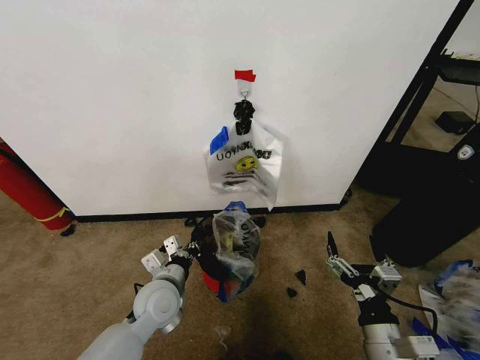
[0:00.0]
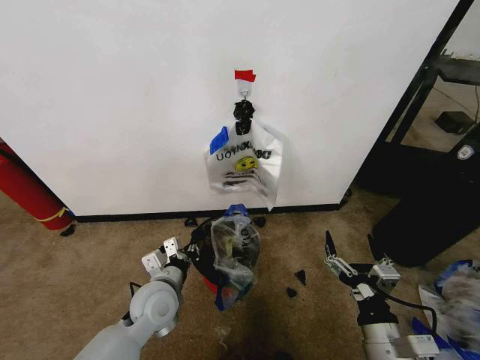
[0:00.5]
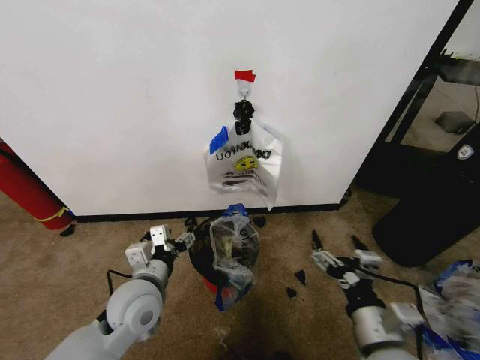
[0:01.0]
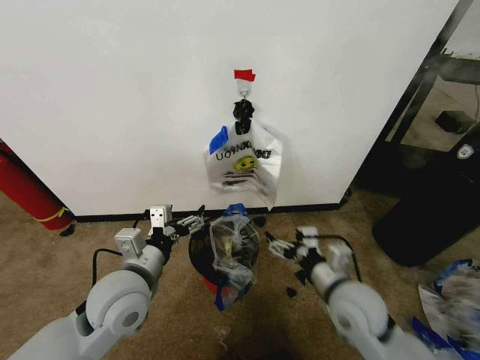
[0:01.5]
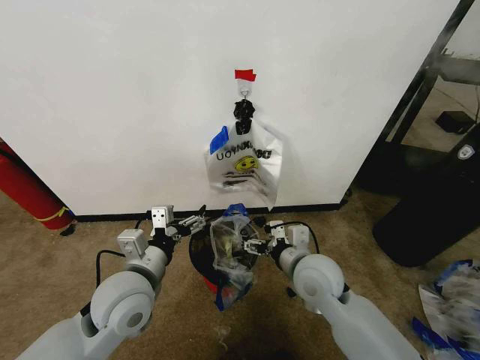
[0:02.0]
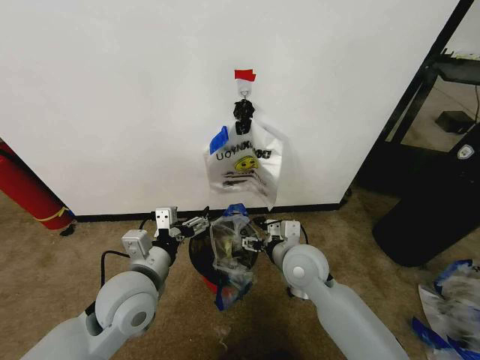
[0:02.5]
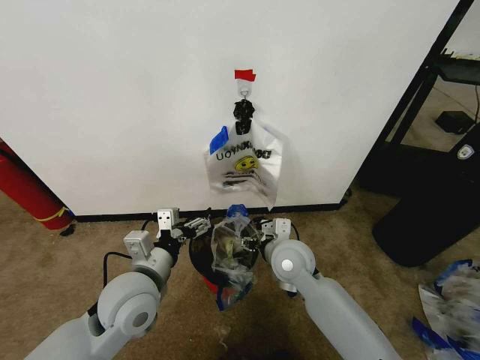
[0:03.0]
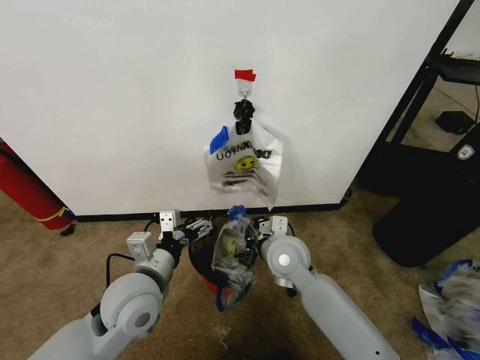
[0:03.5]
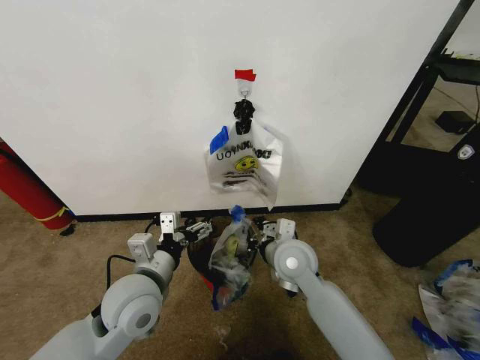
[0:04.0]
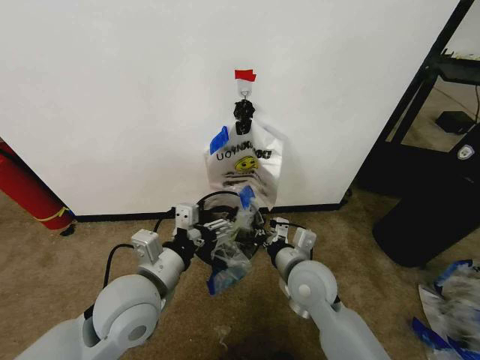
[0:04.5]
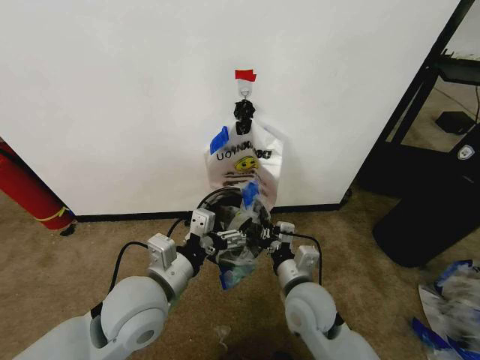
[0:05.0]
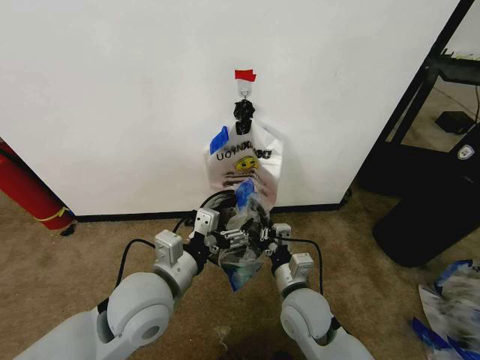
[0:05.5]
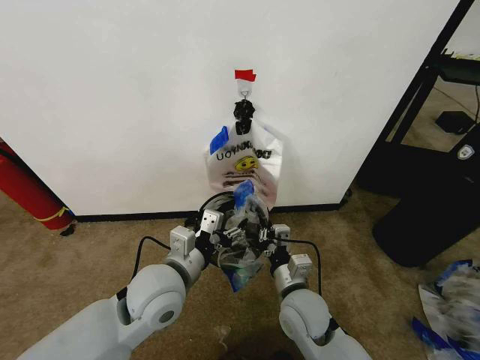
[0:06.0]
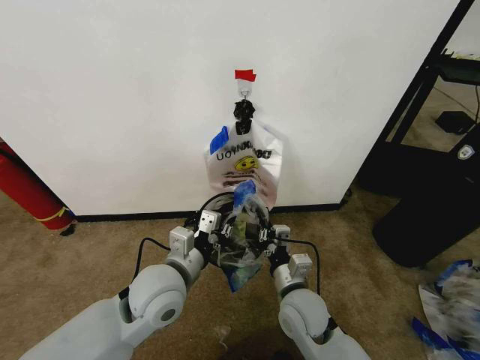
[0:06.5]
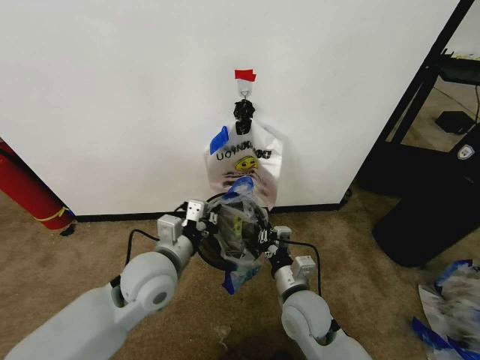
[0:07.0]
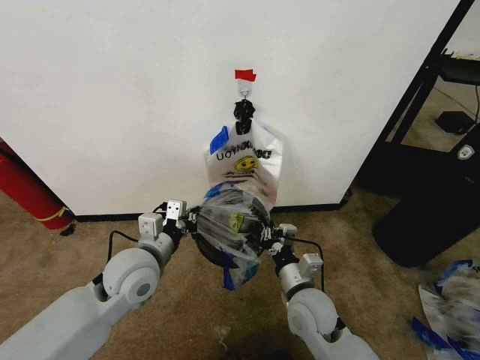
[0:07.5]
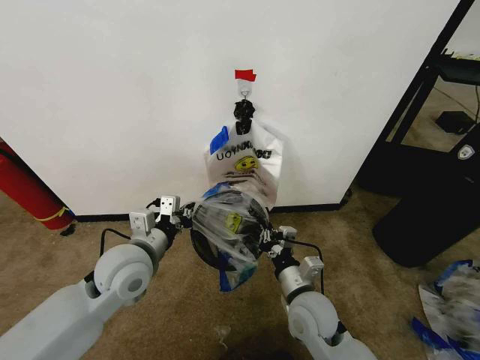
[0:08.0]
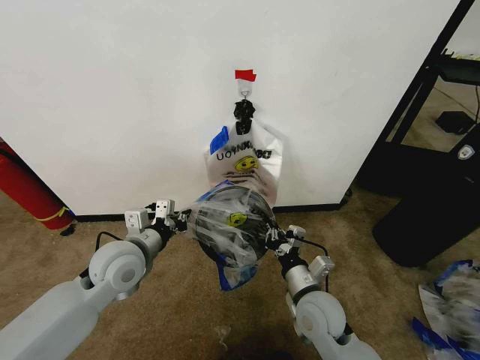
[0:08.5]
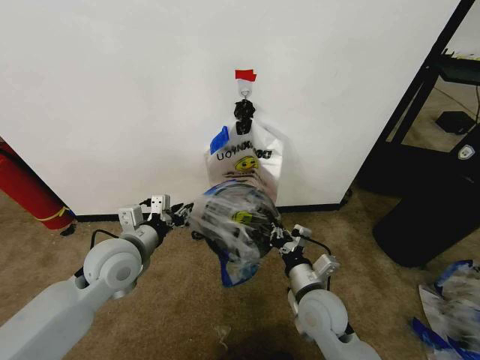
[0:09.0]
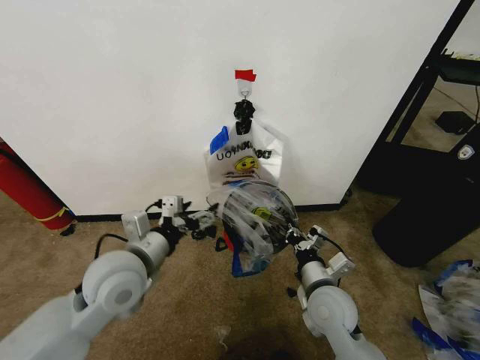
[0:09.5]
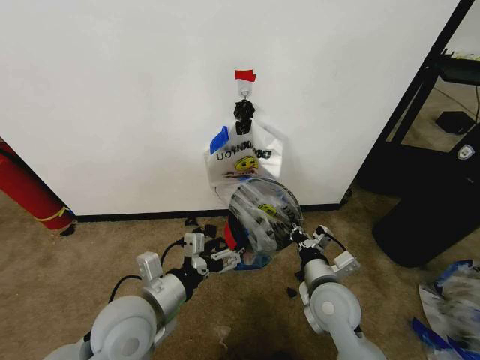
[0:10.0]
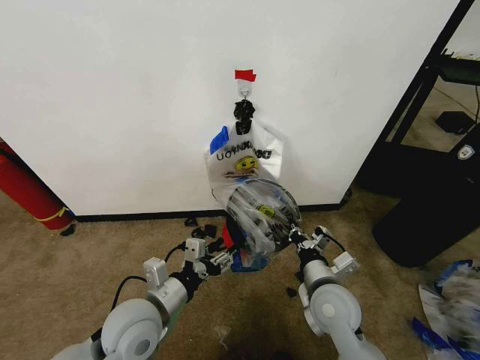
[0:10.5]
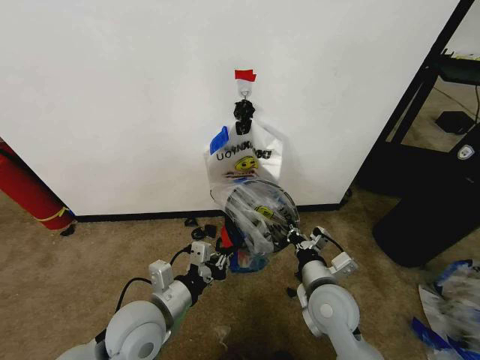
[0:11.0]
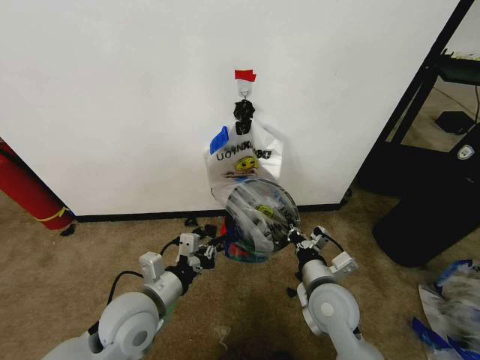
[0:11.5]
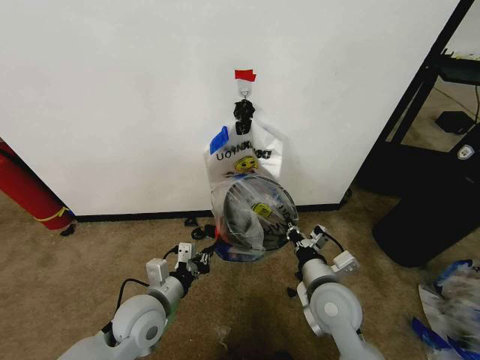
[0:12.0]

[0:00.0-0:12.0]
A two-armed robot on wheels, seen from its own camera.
Task of the whole recording: Pick up the garbage bag from the wall and place it over the trash bin.
0:00.0 to 0:02.0: The right gripper travels forward and to the left by roughly 20 cm, while the left gripper goes about 10 cm upward, and opens its fingers.
0:02.0 to 0:04.0: The right gripper ends up roughly 5 cm from where it was, and closes up.
0:04.0 to 0:06.0: The right gripper goes some 10 cm backward and downward.
0:06.0 to 0:08.0: The left gripper heads to the left, covering some 5 cm, and closes its fingers.
0:08.0 to 0:10.0: The left gripper goes about 10 cm backward, and opens up.
0:10.0 to 0:12.0: The left gripper travels downward by roughly 10 cm, and closes its fingers.

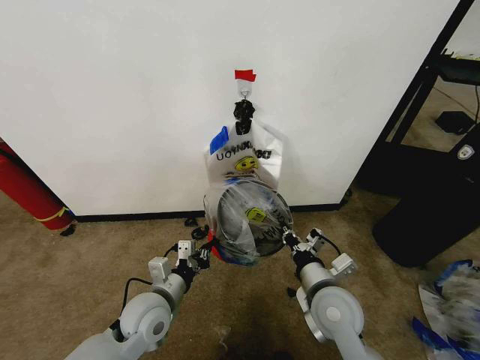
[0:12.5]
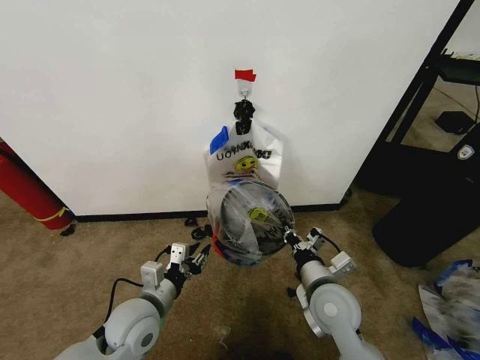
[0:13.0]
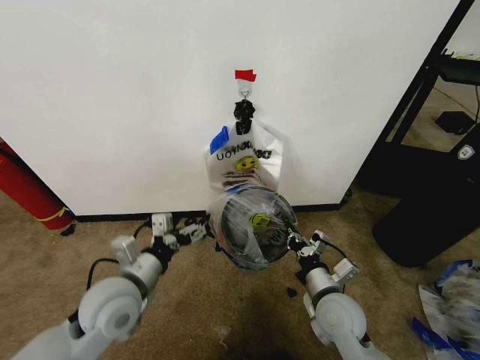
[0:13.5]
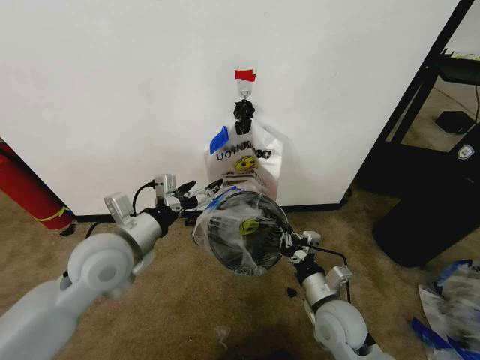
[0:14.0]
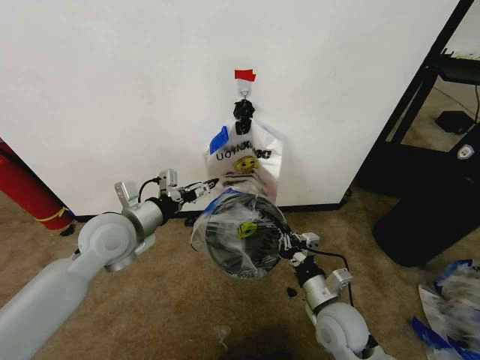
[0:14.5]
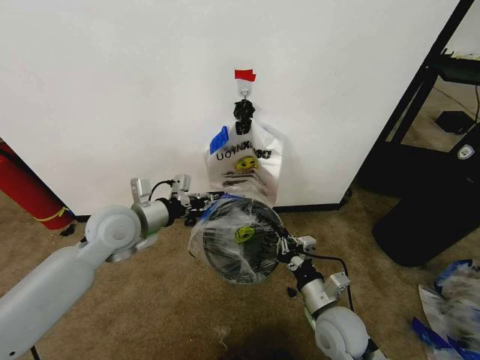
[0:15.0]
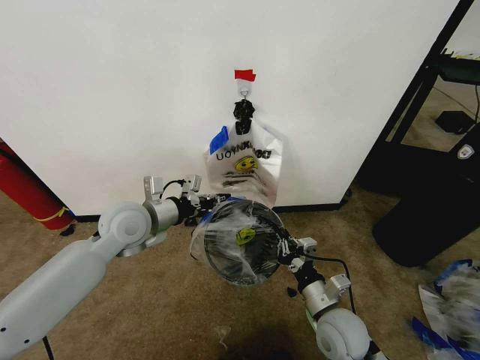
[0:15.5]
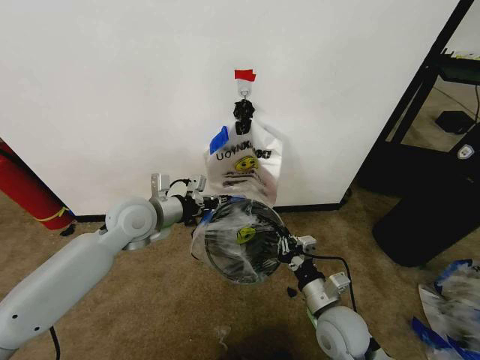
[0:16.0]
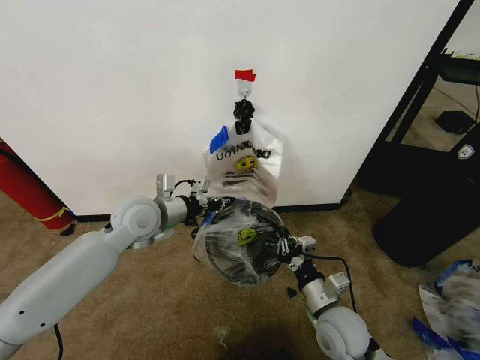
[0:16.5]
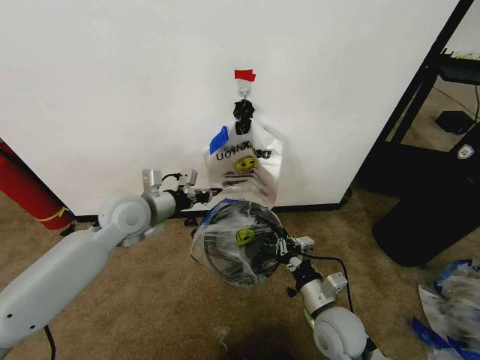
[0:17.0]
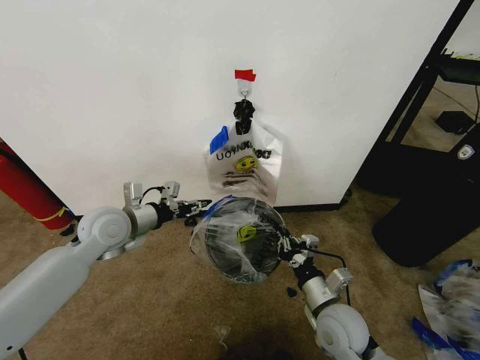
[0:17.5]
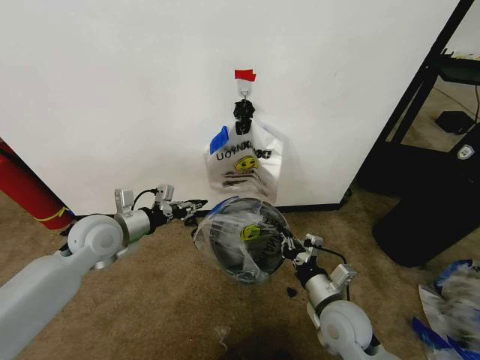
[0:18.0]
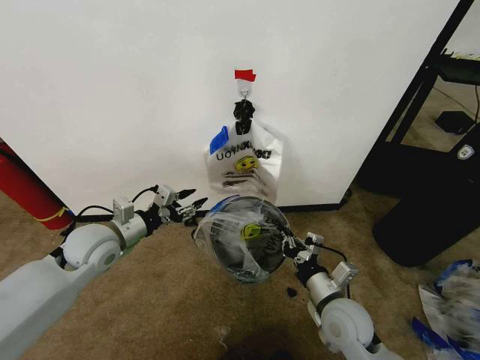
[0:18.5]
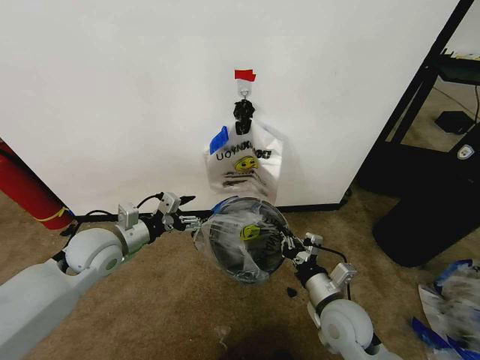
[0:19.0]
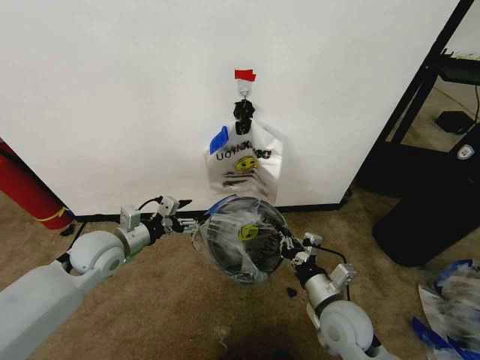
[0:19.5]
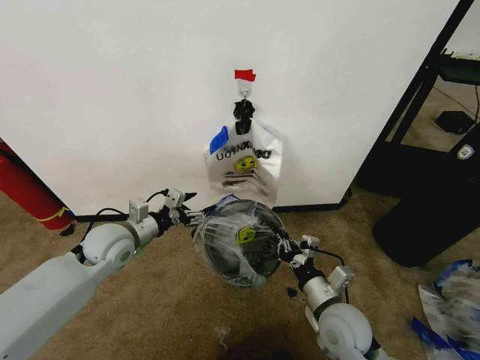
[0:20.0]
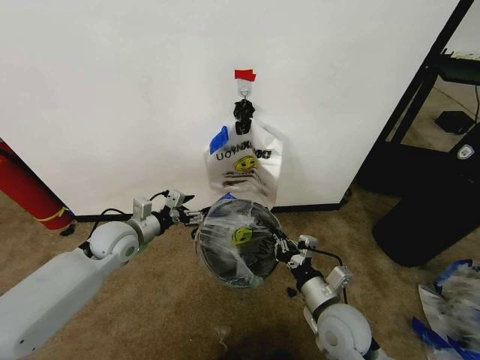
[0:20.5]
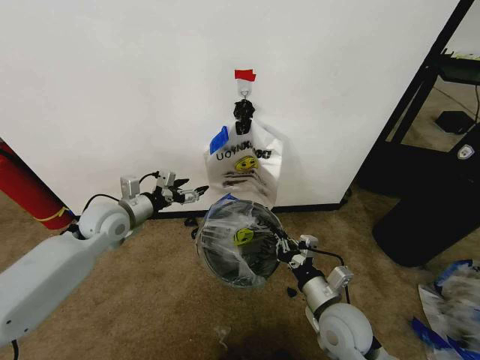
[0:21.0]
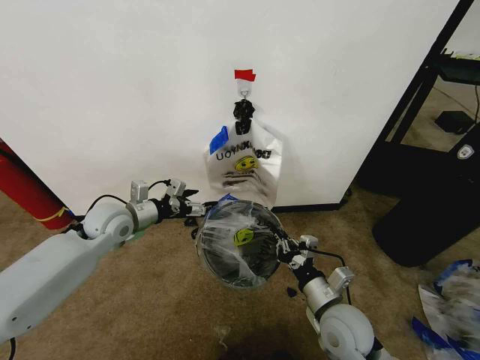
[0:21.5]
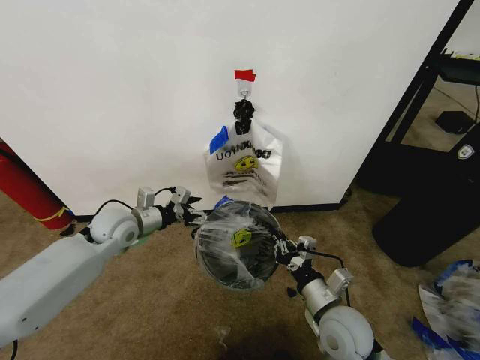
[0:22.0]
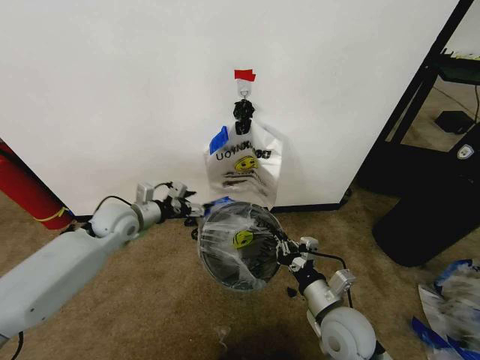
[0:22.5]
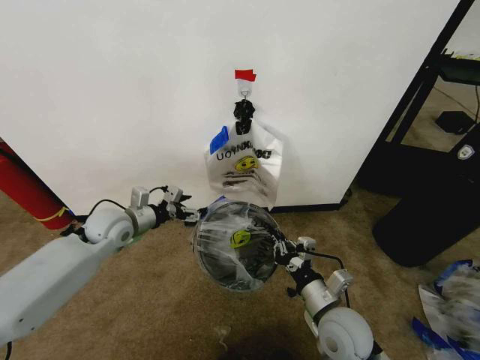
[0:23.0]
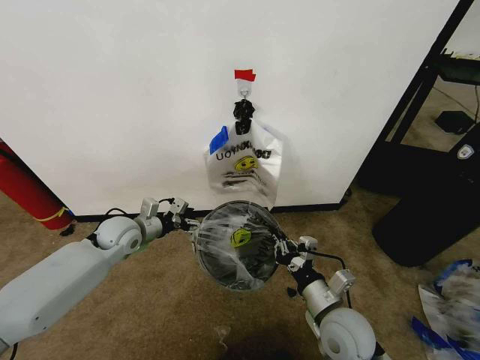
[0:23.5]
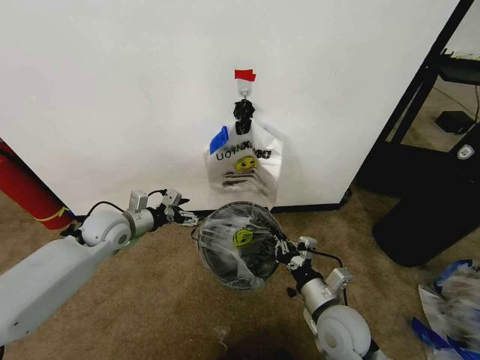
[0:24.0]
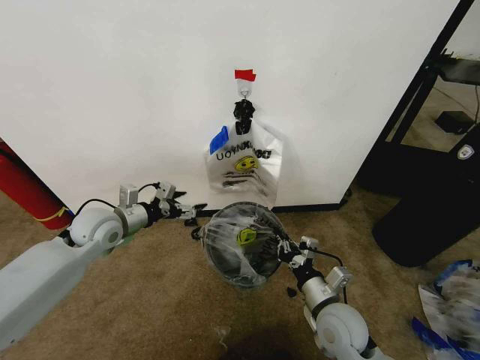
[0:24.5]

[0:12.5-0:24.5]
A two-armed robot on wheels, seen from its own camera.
Task of the whole recording: Pick up the garbage bag from the wall and place it over the trash bin.
0:12.5 to 0:14.5: The right gripper goes roughly 5 cm downward, while the left gripper is displaced upward and forward by some 20 cm, and opens up.
0:14.5 to 0:16.5: The left gripper goes approximately 5 cm forward, and closes up.
0:16.5 to 0:18.5: The left gripper travels to the left by about 10 cm, and opens up.
0:18.5 to 0:20.5: The left gripper ends up approximately 5 cm from where it was.
0:20.5 to 0:24.5: The grippers move only a little.

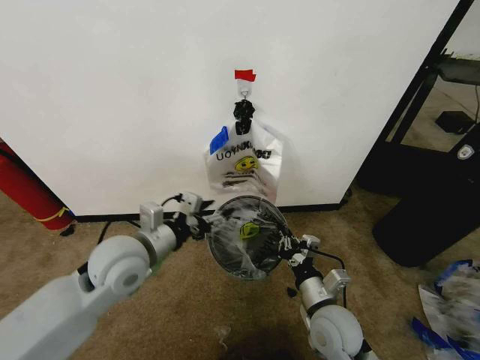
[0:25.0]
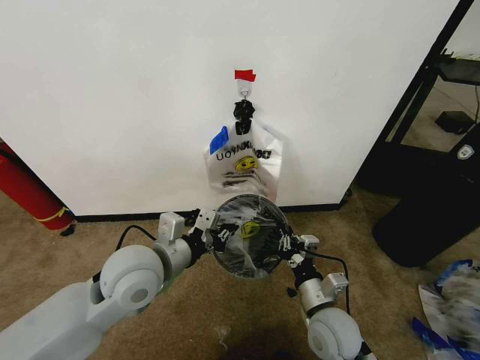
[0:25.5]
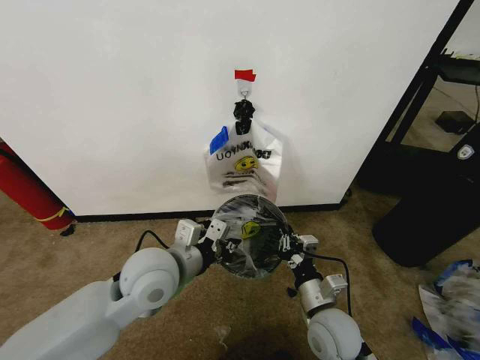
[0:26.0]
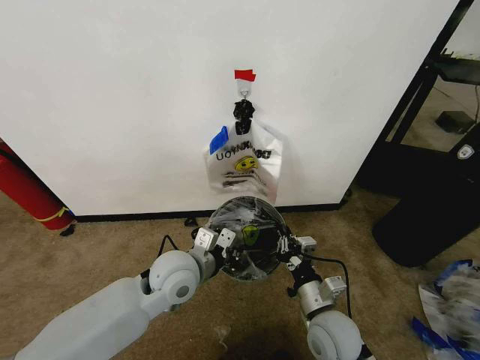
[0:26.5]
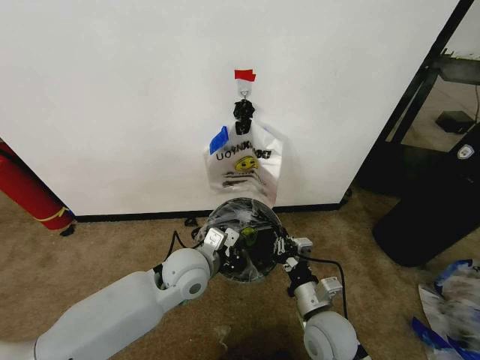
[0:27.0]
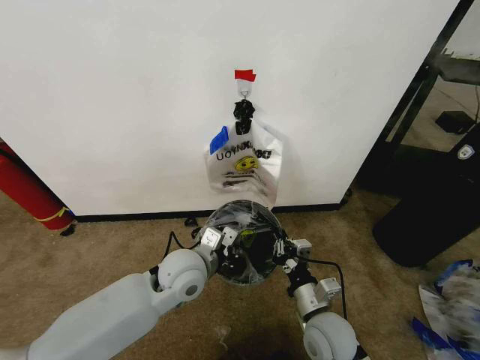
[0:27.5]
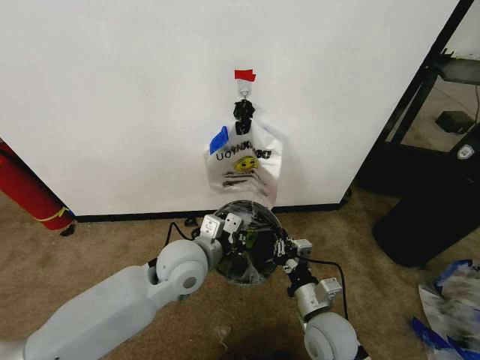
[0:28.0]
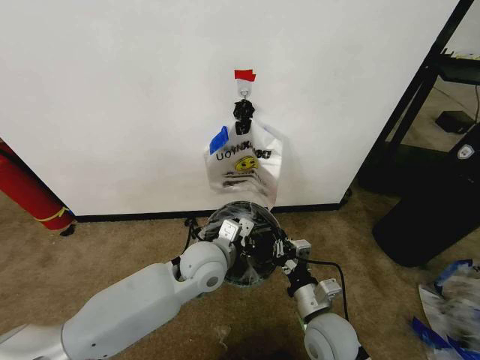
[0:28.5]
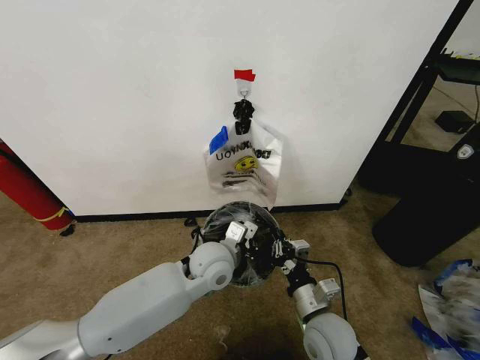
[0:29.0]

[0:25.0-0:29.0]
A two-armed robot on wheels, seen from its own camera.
Task of the whole recording: Pick up the garbage bag from the wall and place it over the trash bin.
0:25.0 to 0:27.0: The left gripper heads to the right and downward, covering roughly 15 cm, and closes its fingers.
0:27.0 to 0:29.0: The left gripper goes some 5 cm to the right.
